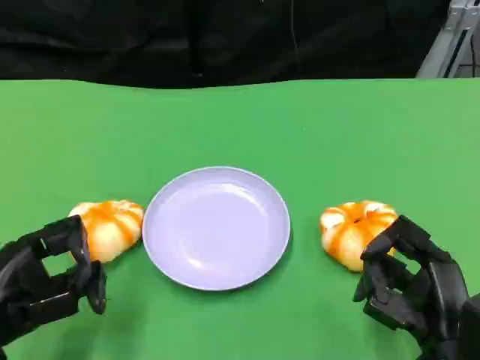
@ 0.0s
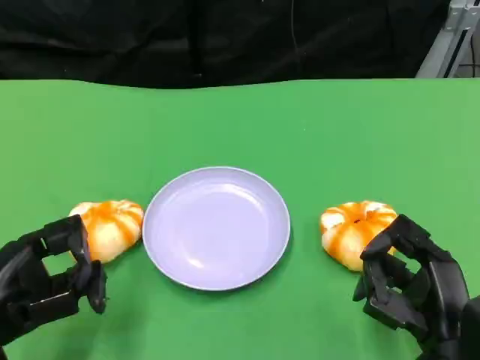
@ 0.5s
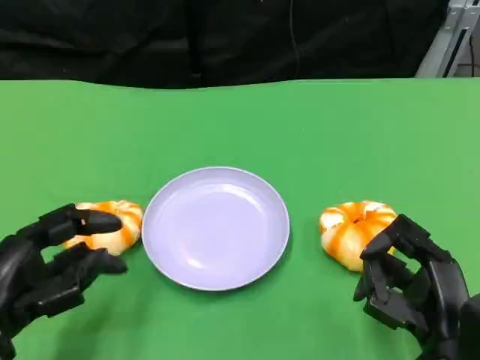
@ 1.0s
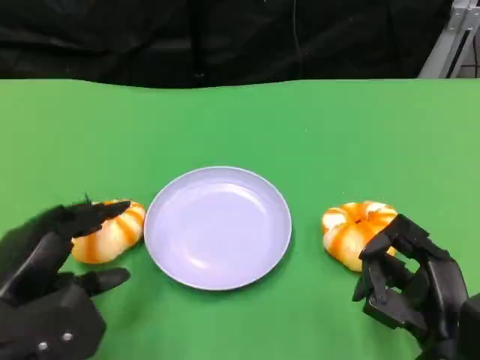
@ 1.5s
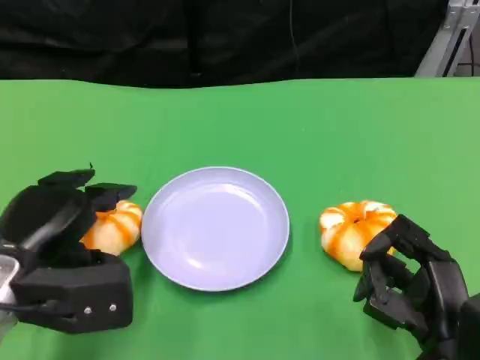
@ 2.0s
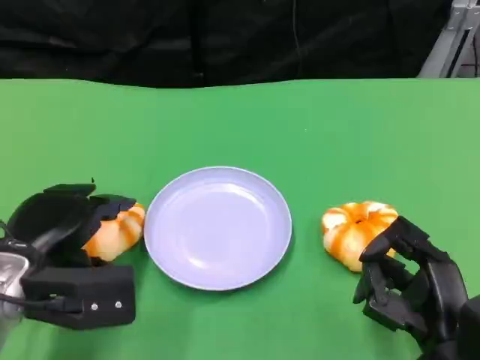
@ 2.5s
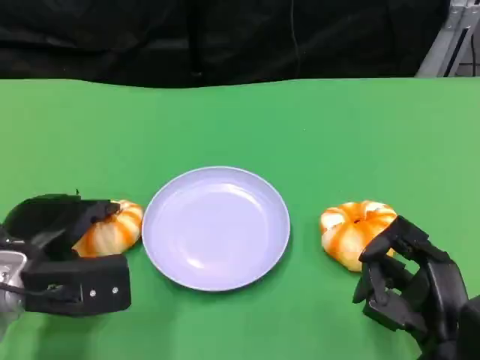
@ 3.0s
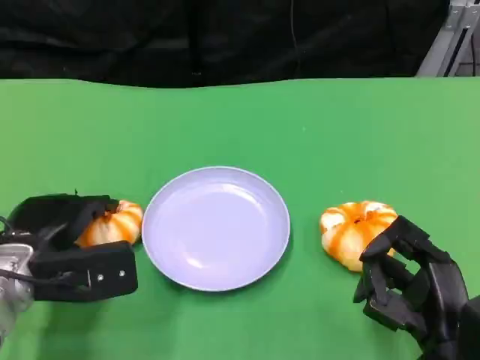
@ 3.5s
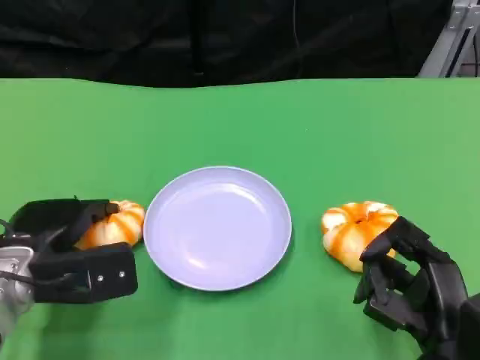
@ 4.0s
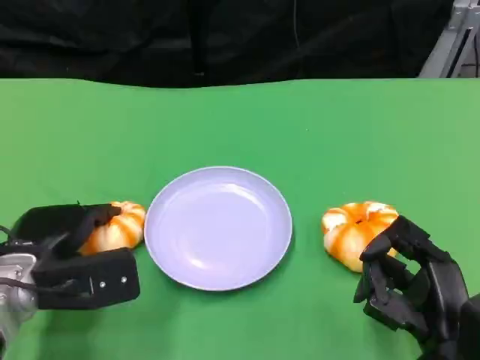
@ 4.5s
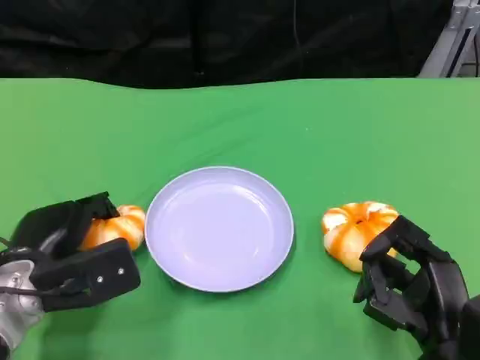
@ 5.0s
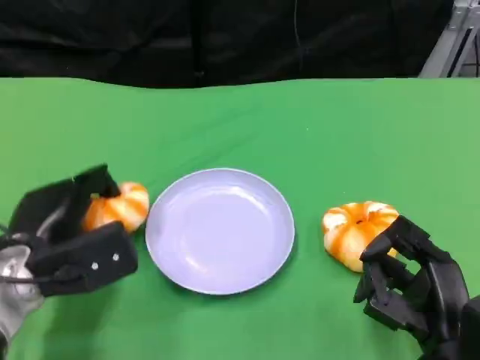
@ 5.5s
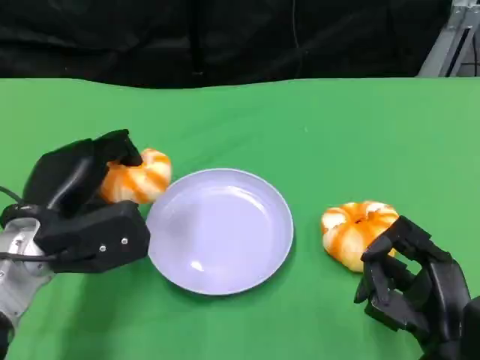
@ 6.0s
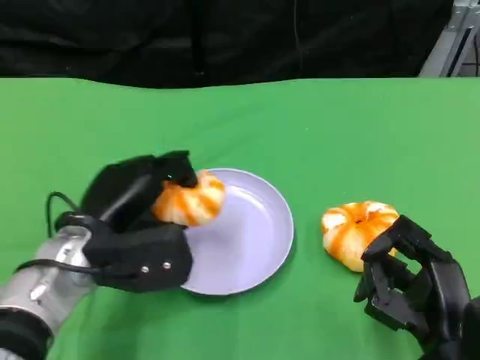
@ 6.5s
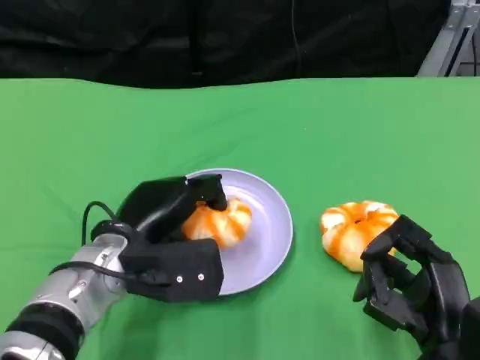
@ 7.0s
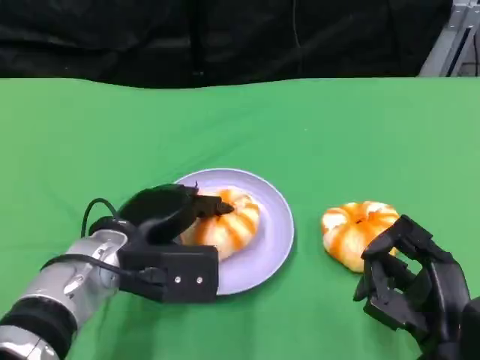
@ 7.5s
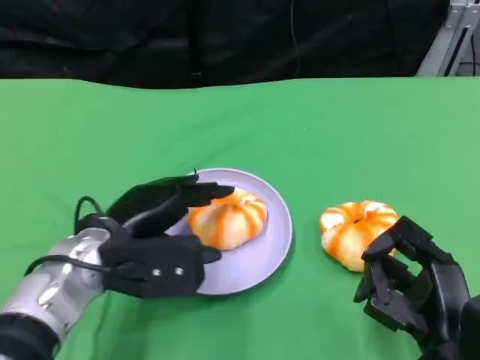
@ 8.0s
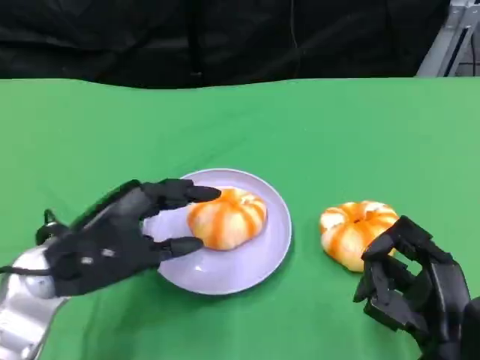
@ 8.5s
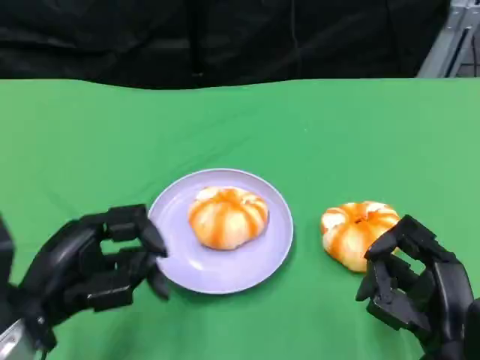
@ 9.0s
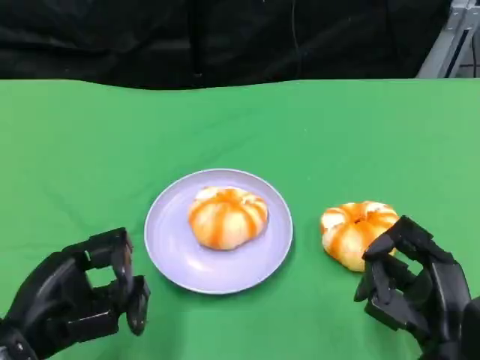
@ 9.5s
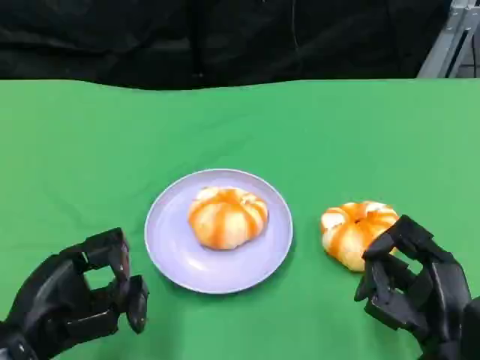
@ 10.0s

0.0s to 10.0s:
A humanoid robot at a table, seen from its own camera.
Task of the whole recording: Grasp the bread from the table and place it into the plate.
0.0s to 2.0s: The left hand moves forward, some 5 cm.
2.0s to 4.0s: The left hand changes place by some 5 cm.
8.0s to 10.0s: The left hand travels backward and to the left by roughly 15 cm.

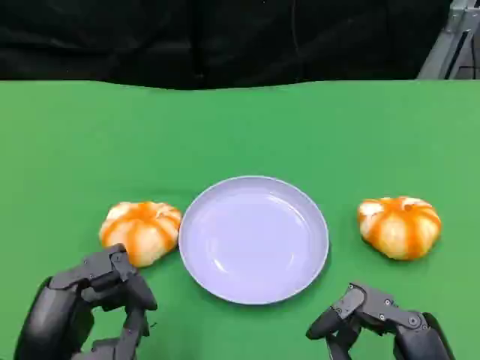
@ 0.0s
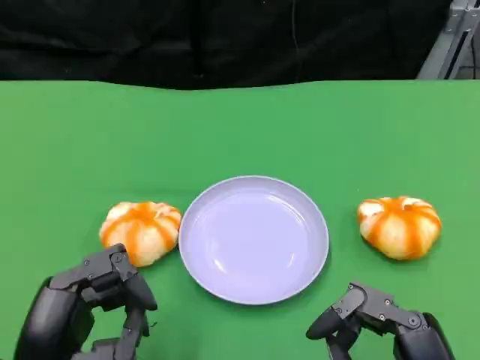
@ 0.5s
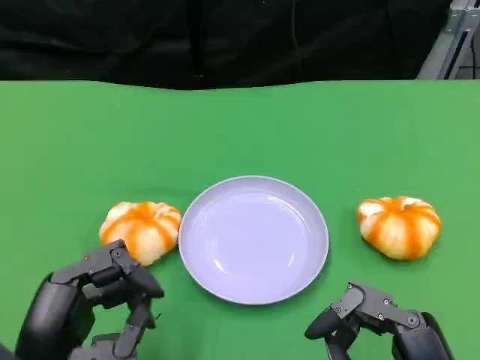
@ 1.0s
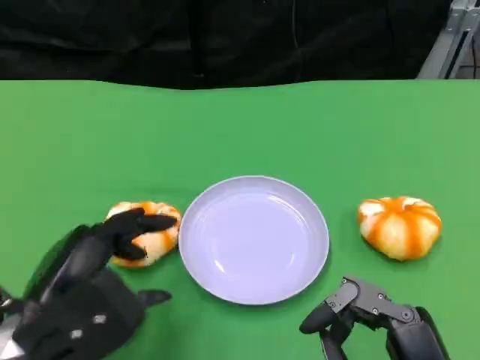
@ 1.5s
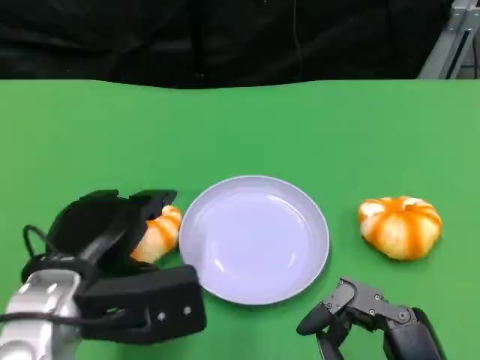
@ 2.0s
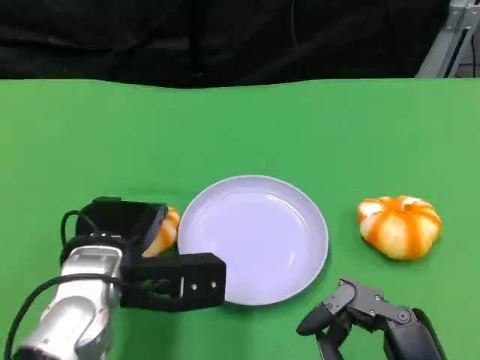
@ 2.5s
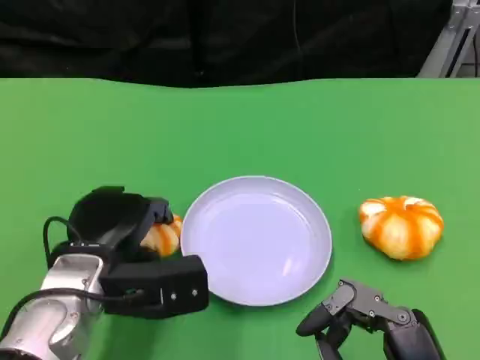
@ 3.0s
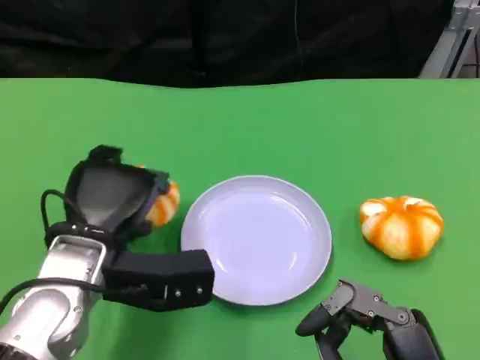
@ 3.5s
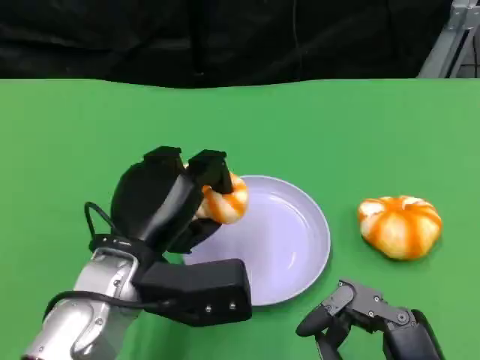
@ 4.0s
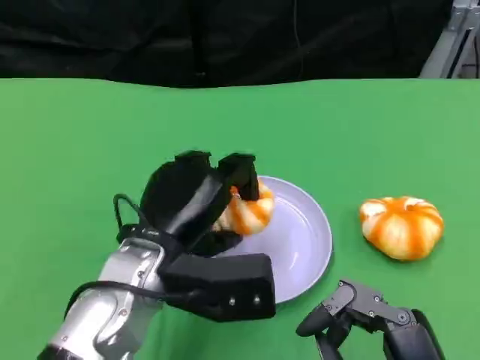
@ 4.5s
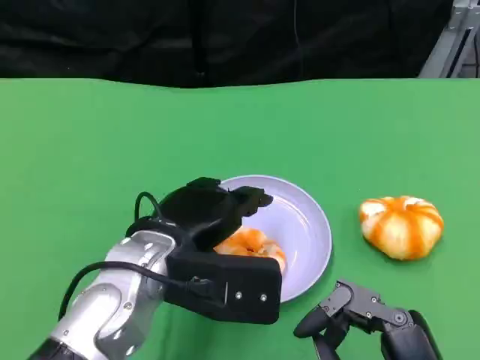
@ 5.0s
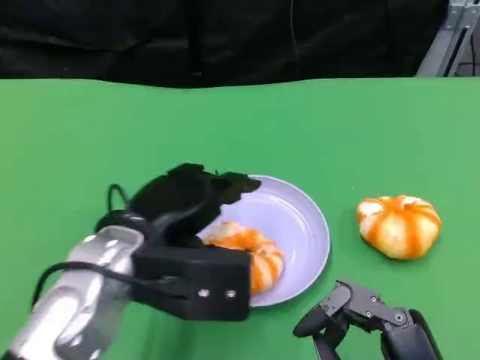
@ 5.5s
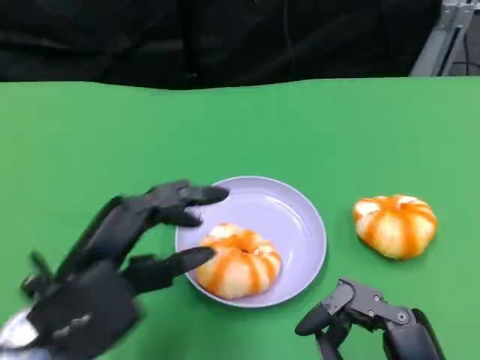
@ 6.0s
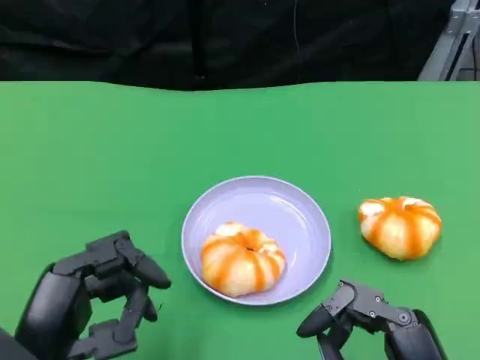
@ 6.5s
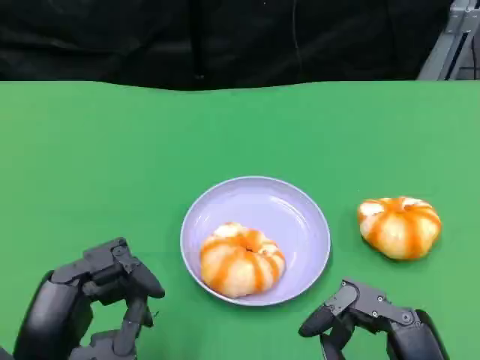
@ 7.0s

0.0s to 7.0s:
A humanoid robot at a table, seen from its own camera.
Task of the whole recording: Grasp the bread from the table and place it into the plate.
0.0s to 2.0s: The left hand is displaced forward by roughly 10 cm.
3.5s to 5.0s: The left hand goes about 5 cm to the right.
5.0s to 7.0s: The left hand is displaced backward and to the left by approximately 15 cm.

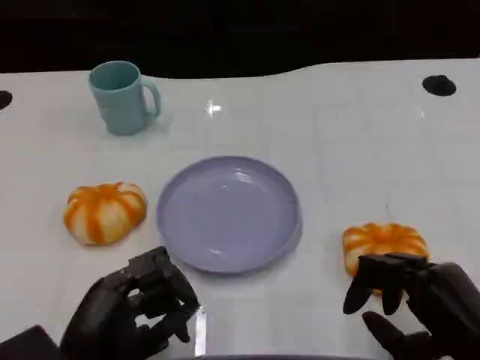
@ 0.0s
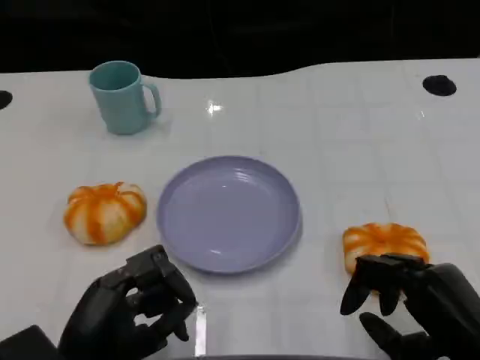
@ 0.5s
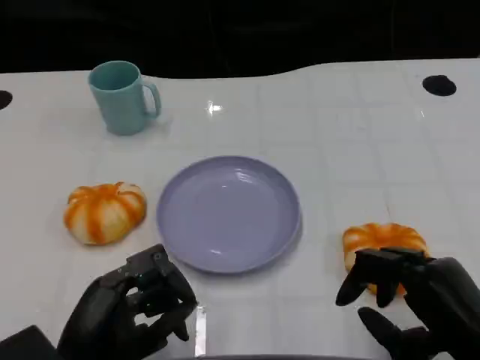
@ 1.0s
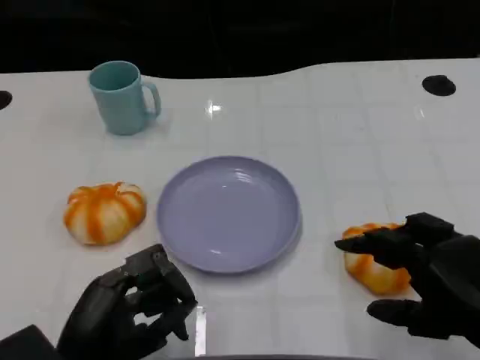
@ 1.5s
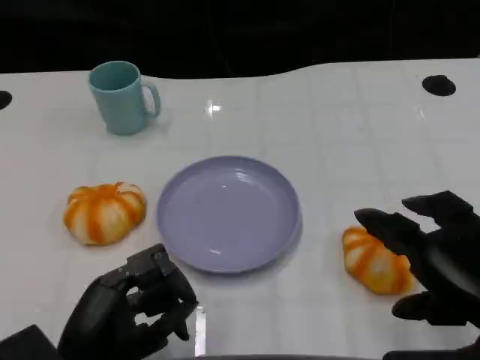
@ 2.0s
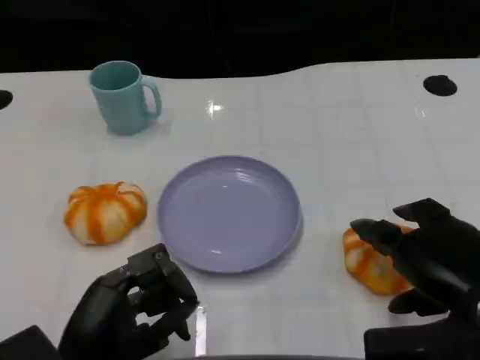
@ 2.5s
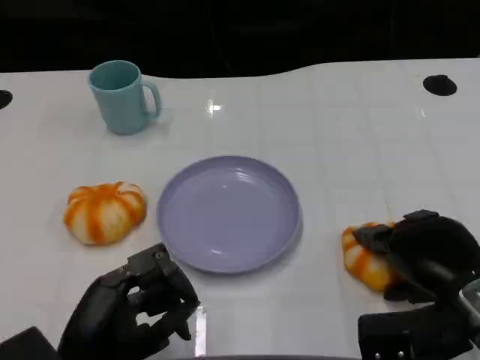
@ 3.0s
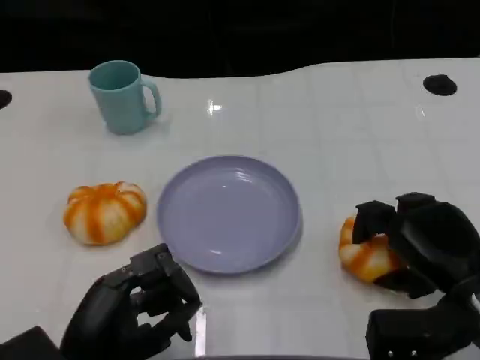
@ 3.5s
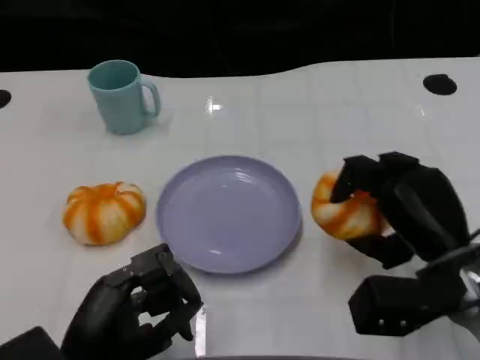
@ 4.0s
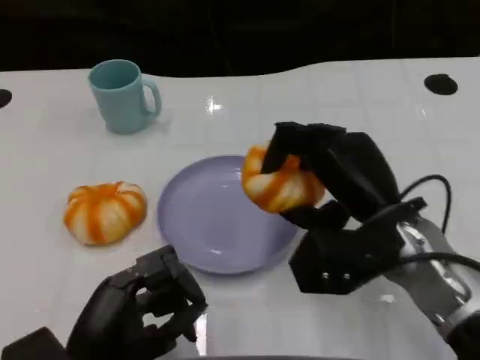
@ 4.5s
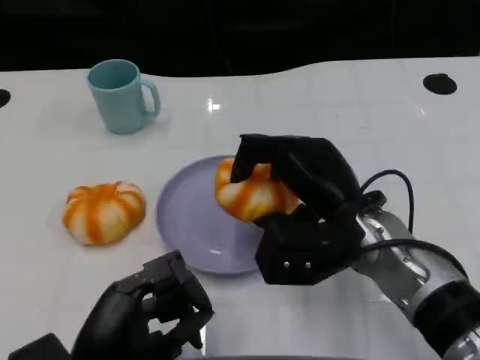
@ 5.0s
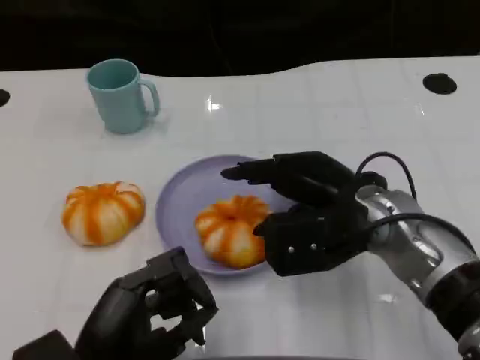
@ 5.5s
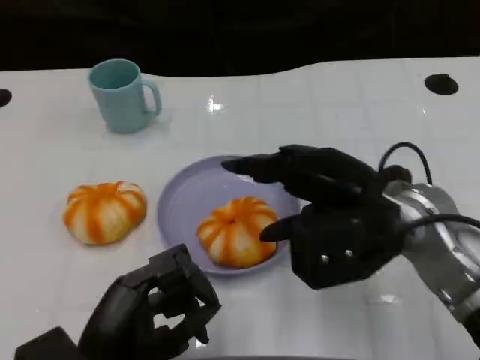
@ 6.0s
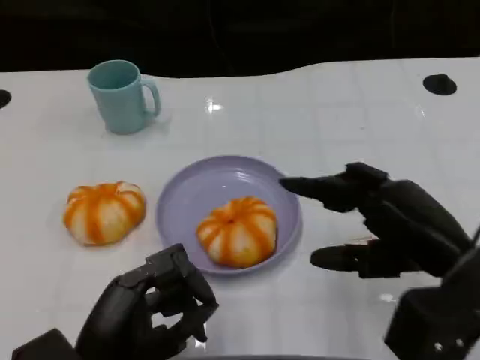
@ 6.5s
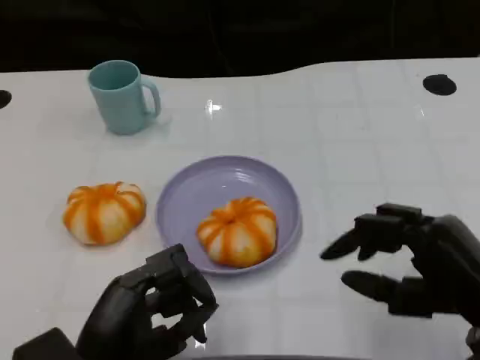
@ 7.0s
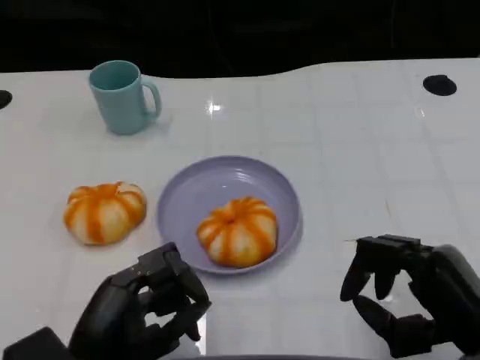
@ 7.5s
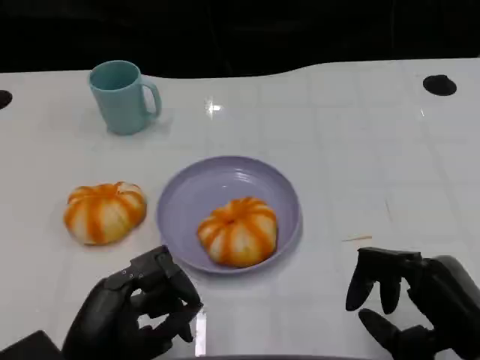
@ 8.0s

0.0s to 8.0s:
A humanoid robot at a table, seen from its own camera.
Task of the whole recording: Grasp the bread from the table and place it into the plate.
0.0s to 2.0s: The right hand goes about 5 cm upward.
2.0s to 4.0s: The right hand shifts some 10 cm forward and downward.
4.0s to 6.0s: The right hand is displaced upward by roughly 5 cm.
6.0s to 8.0s: The right hand goes approximately 15 cm backward, downward and to the right.

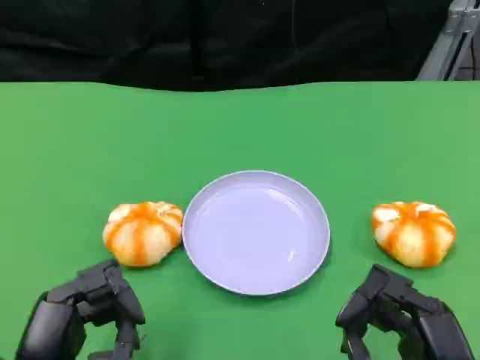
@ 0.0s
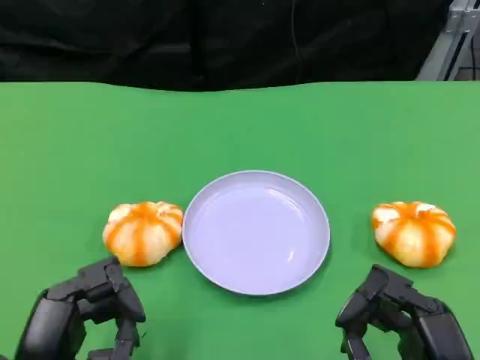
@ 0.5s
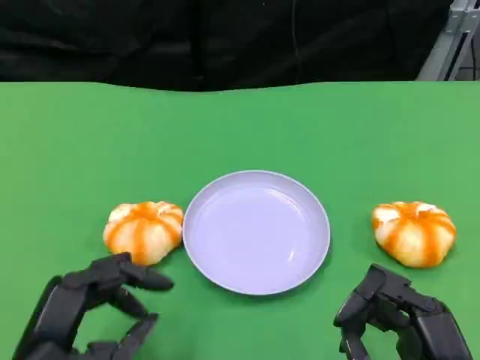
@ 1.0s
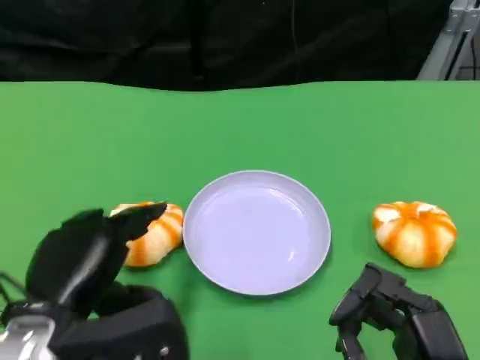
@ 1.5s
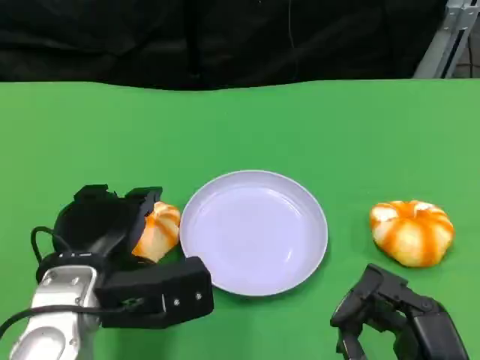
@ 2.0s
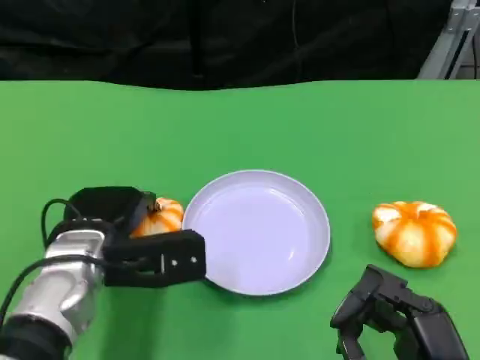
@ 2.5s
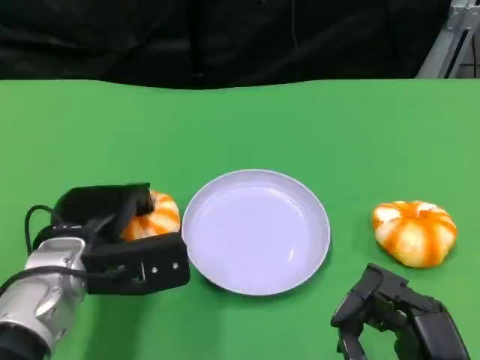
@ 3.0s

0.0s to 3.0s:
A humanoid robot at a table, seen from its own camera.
Task of the whole recording: Grasp the bread from the table and place it into the plate.
0.0s to 1.5s: The left hand shifts some 5 cm forward.
1.5s to 3.0s: The left hand heads forward, covering roughly 10 cm.
